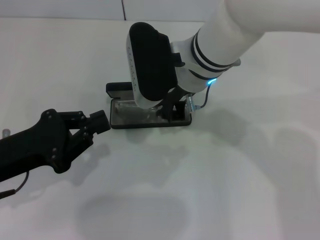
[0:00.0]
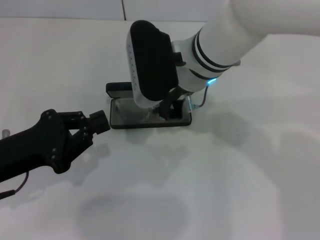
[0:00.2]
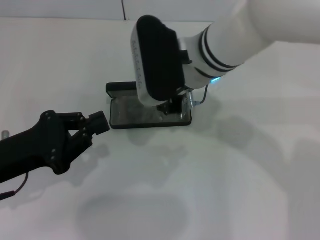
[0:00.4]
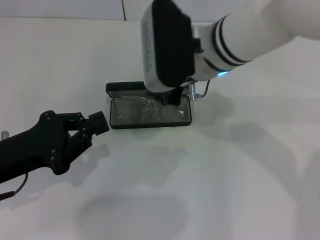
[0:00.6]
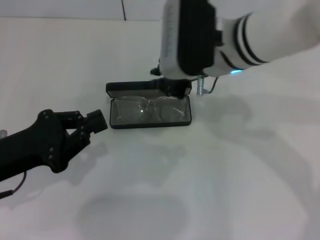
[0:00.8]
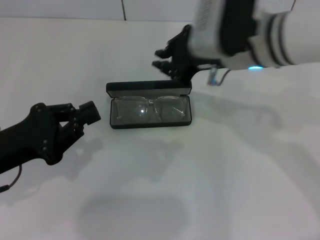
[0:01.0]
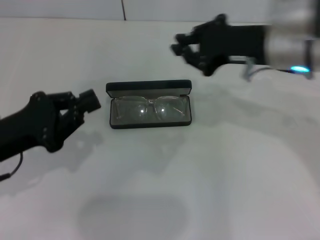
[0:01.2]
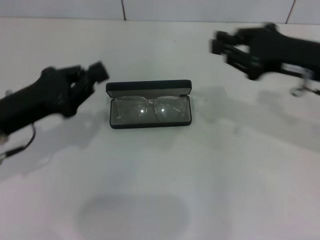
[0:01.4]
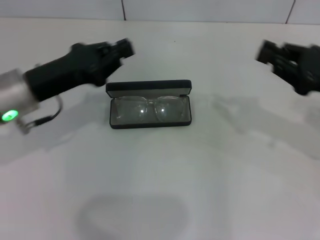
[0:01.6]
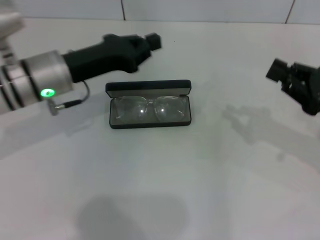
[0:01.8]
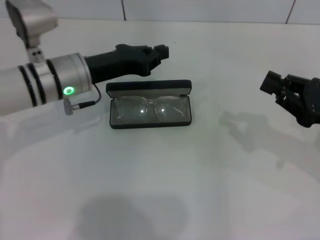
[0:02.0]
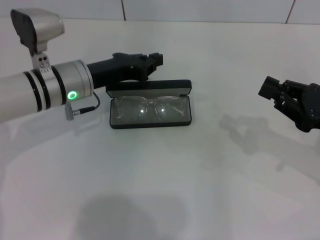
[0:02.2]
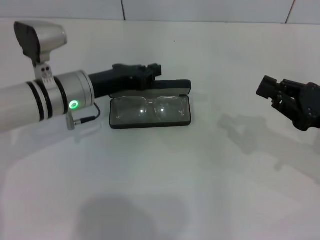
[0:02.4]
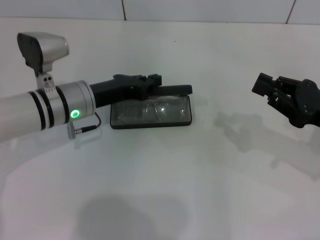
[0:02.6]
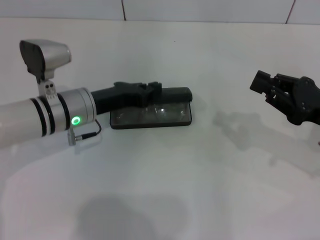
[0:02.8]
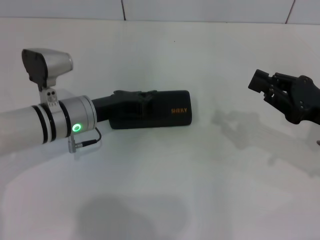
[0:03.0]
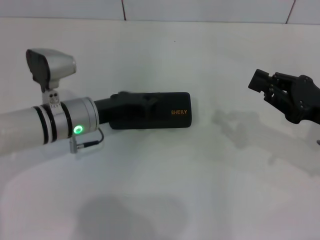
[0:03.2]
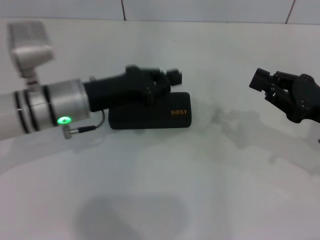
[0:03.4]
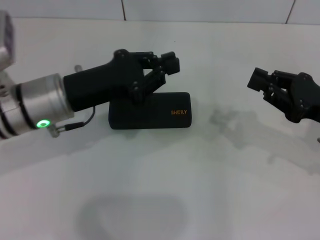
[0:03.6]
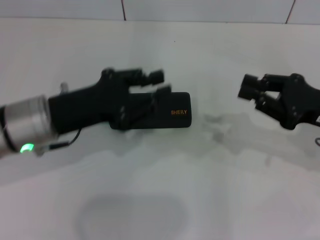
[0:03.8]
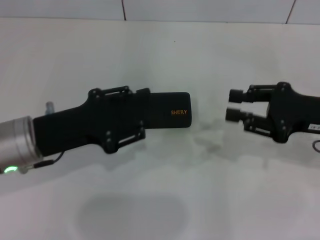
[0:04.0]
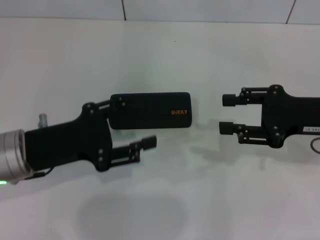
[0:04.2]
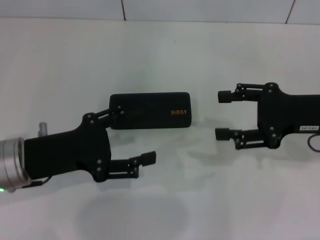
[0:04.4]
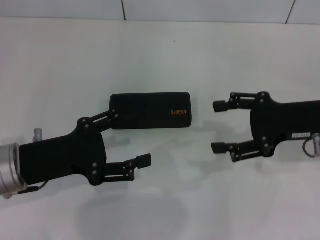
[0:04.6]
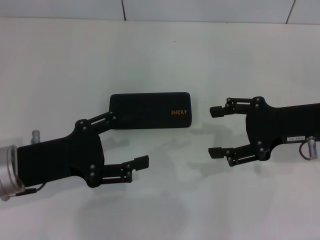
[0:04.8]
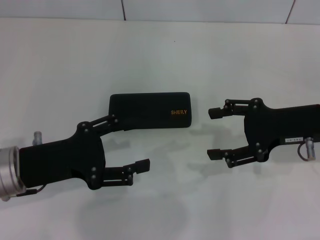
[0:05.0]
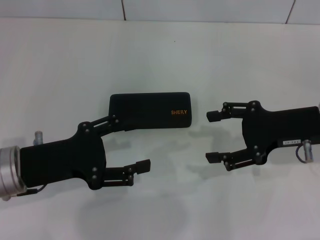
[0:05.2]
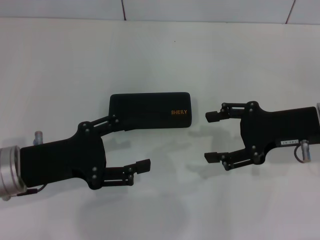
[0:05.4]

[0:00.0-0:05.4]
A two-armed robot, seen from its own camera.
Step, 1.0 to 3.2 s: Close the glasses case with your left hand.
0.0 to 1.4 s: The right gripper goes about 20 cm to the right.
1.4 to 2.8 s: The right gripper moves downward, about 10 cm. The left gripper shifts roughly 15 cm to the right, forward and downward.
2.8 to 4.0 s: The left gripper goes about 10 cm backward and upward.
4.0 to 5.4 s: The right gripper opens up. Meanwhile the left gripper opens up.

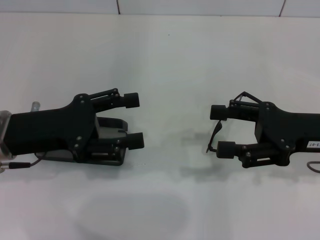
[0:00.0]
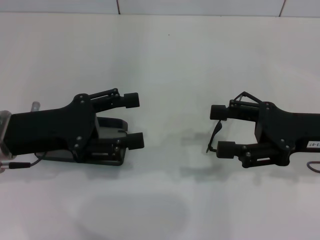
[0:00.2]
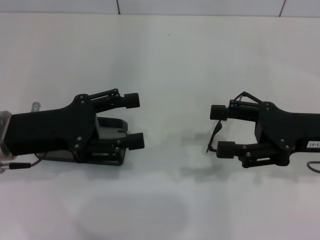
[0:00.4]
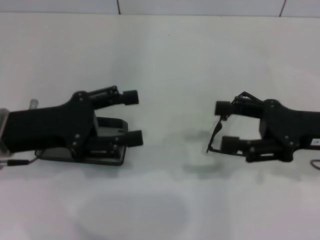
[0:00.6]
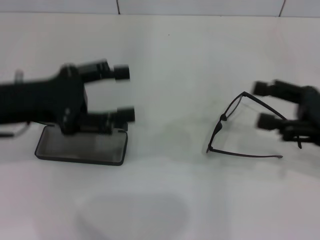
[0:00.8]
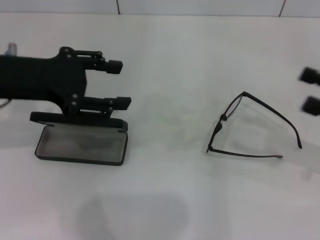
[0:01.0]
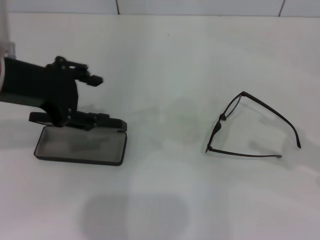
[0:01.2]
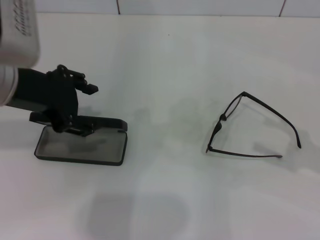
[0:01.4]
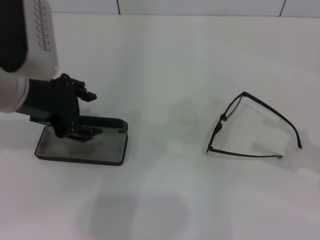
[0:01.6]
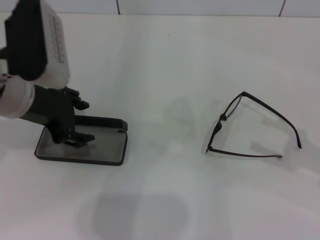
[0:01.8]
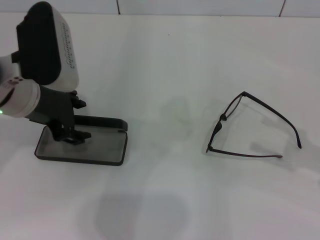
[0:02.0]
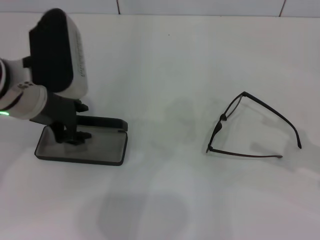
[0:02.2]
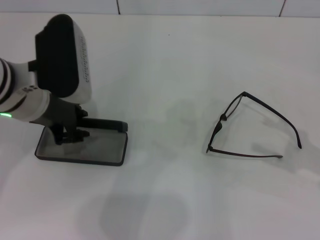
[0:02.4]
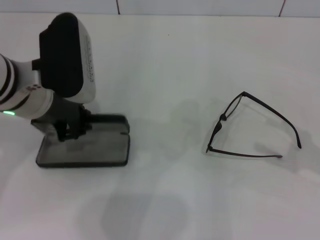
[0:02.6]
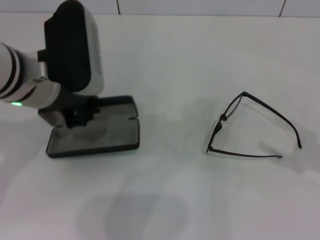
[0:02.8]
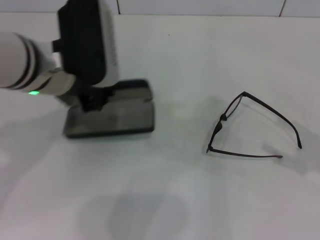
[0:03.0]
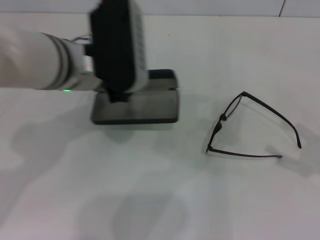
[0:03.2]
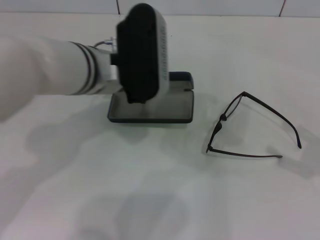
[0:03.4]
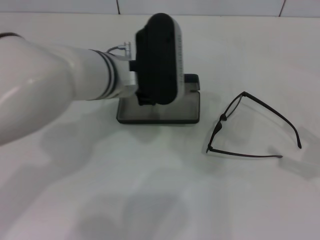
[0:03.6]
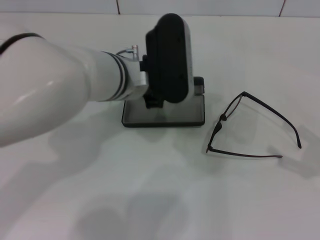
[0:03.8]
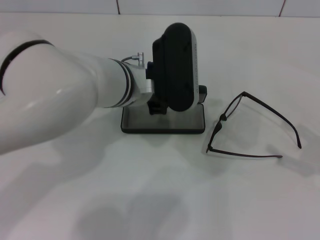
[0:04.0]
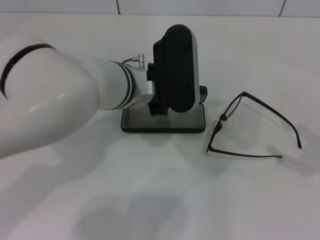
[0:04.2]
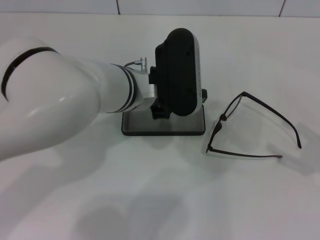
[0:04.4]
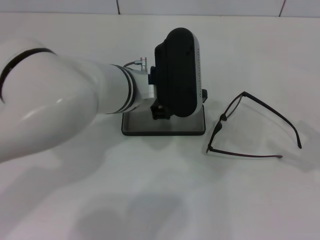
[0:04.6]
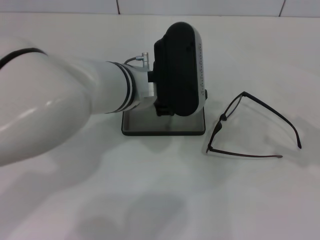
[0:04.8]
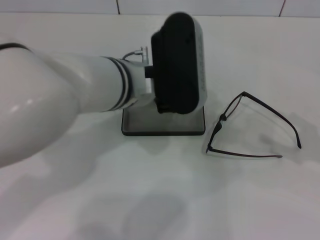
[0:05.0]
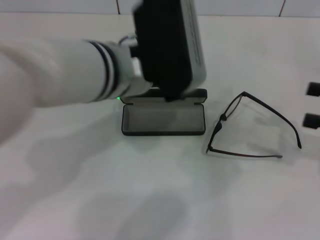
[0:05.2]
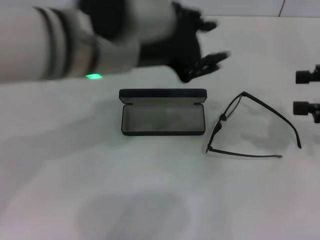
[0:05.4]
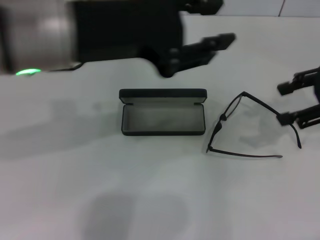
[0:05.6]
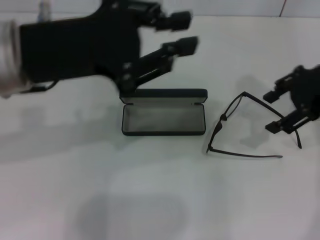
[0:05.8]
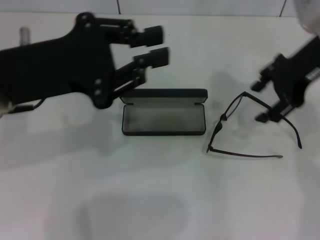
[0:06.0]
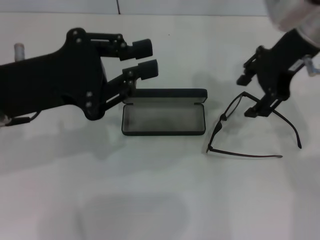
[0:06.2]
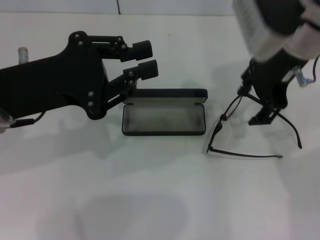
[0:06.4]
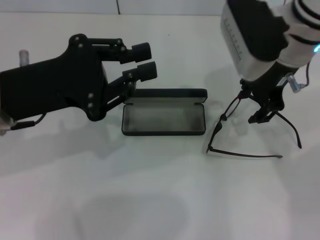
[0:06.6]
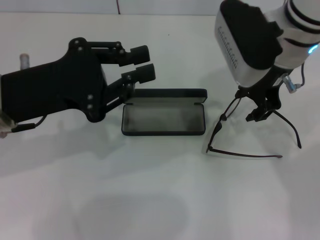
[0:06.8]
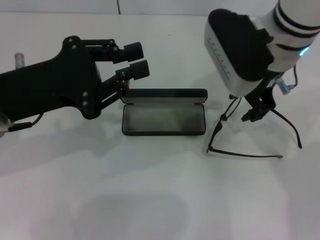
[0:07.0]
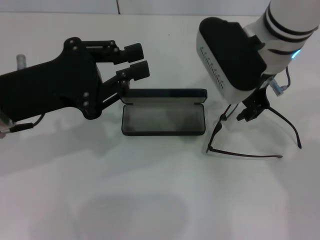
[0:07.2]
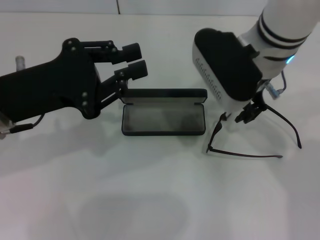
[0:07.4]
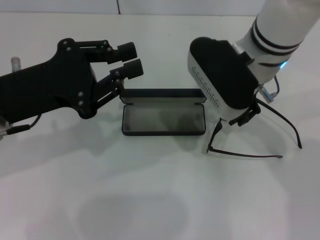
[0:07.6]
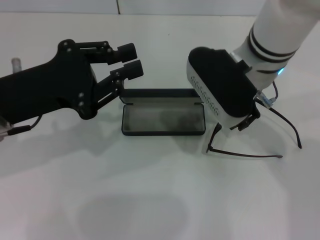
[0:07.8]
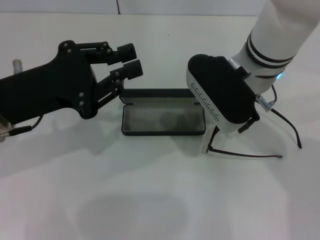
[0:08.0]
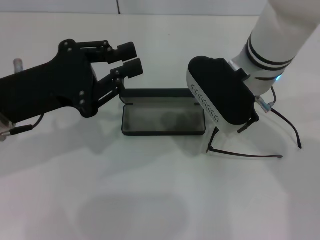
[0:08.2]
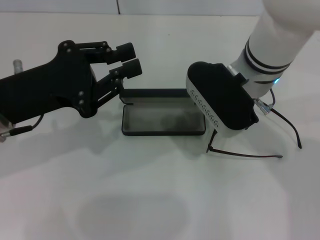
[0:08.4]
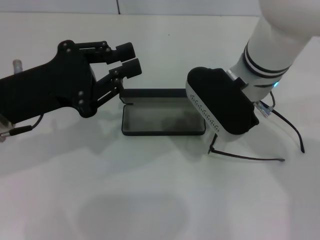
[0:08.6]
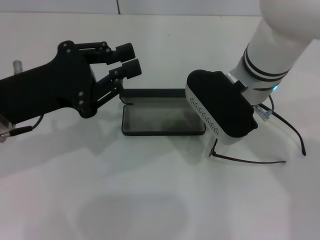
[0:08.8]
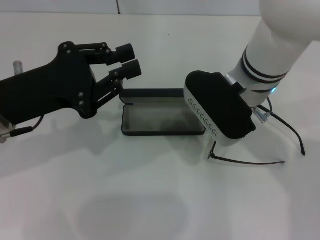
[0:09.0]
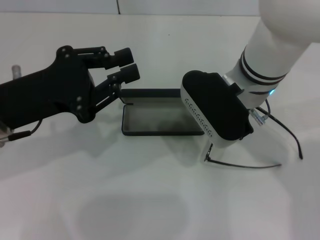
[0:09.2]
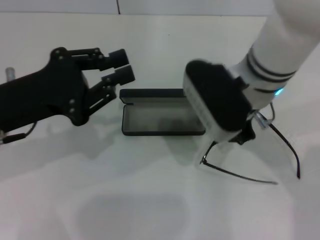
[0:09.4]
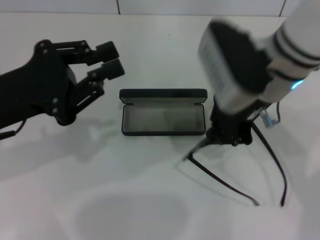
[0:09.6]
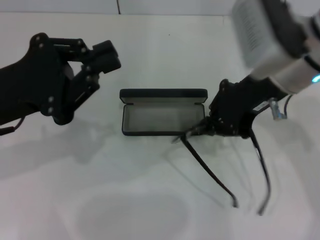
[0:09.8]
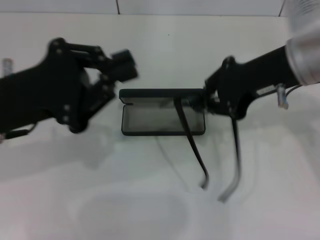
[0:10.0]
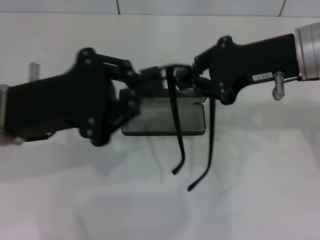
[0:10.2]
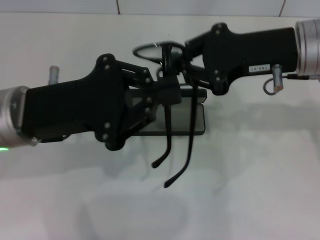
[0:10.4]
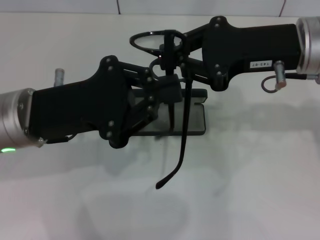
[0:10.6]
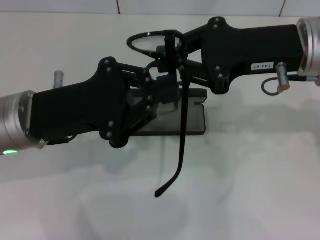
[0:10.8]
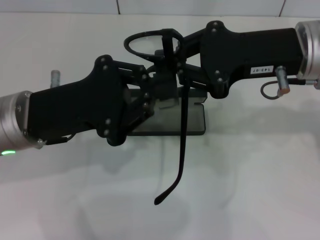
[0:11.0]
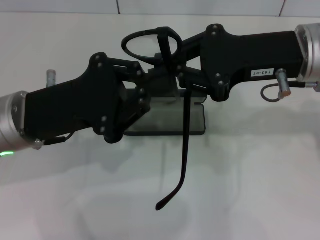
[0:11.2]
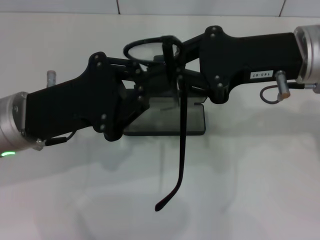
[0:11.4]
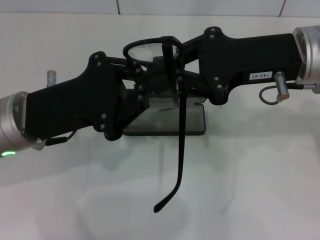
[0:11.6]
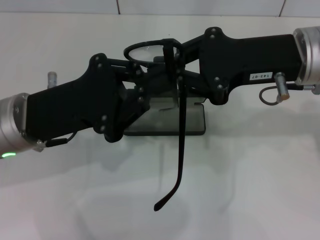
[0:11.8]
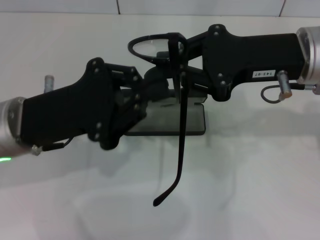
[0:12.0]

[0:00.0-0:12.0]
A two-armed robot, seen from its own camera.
Step, 0.0 to 2.4 s: Grab the glasses case with your left hand.
Step, 2.6 to 4.4 s: Place the glasses case in the center of the table with your left hand.
Step, 4.6 to 8.8 s: Grab the eyeglass frame with your right hand.
0.0 to 1.6 s: The left gripper shifts roughly 10 cm upward. Meanwhile the right gripper heads to the right and backward, covering approximately 15 cm.
1.6 to 3.0 s: The left gripper goes roughly 5 cm to the right, and closes up.
3.0 to 4.4 s: The left gripper travels to the right and downward by about 10 cm.
4.4 to 6.0 s: The left gripper travels to the left, upward and backward by some 20 cm. The right gripper travels to the left, forward and upward by roughly 30 cm.
6.0 to 7.6 s: The right gripper goes approximately 10 cm to the left.
7.6 to 9.0 s: The right gripper closes up.
9.0 to 10.4 s: The right gripper shifts roughly 10 cm to the right and upward.
10.4 to 12.0 s: The grippers move only a little.

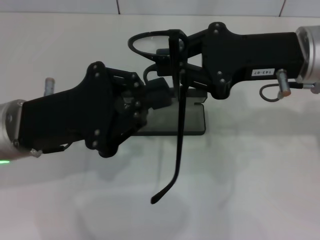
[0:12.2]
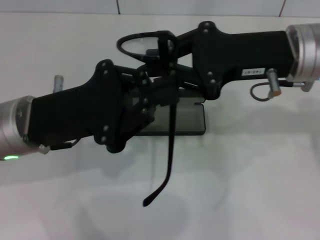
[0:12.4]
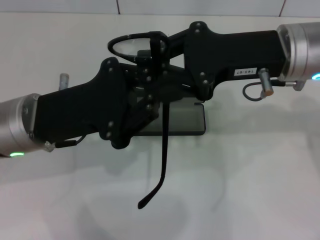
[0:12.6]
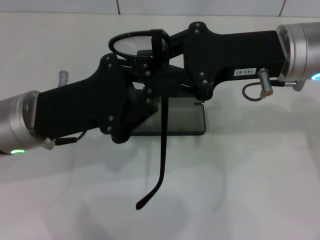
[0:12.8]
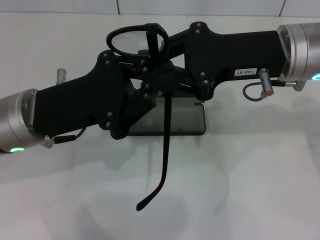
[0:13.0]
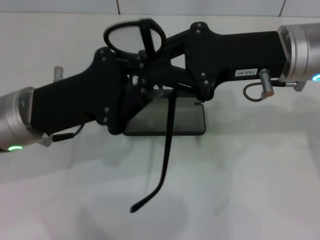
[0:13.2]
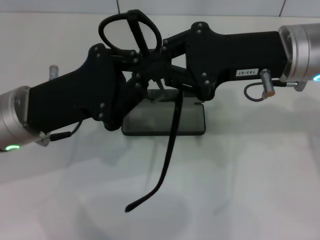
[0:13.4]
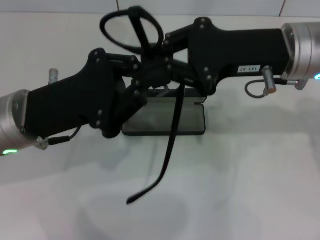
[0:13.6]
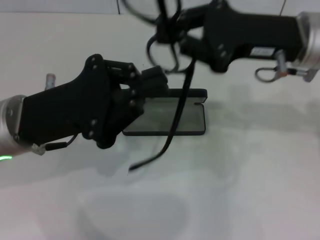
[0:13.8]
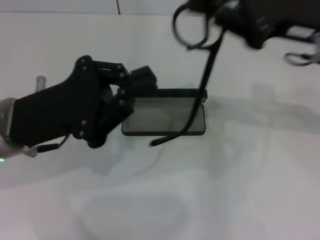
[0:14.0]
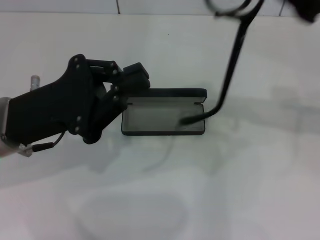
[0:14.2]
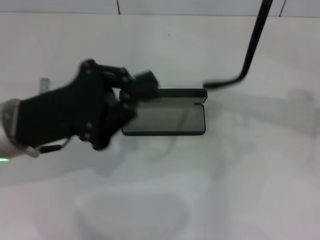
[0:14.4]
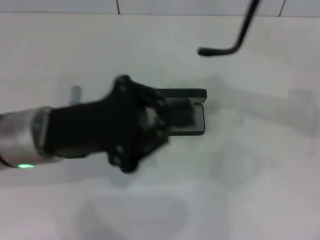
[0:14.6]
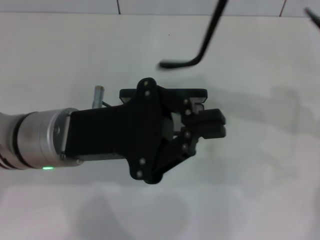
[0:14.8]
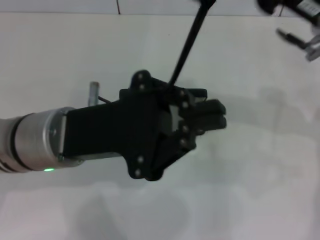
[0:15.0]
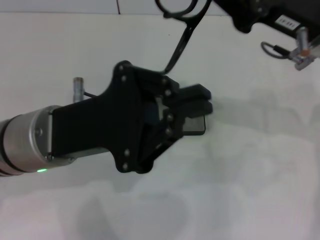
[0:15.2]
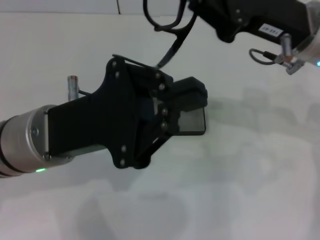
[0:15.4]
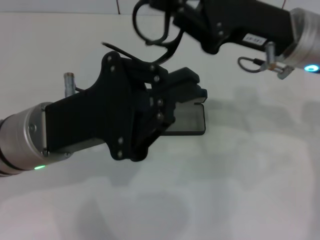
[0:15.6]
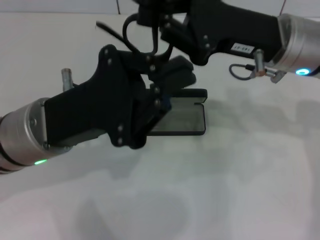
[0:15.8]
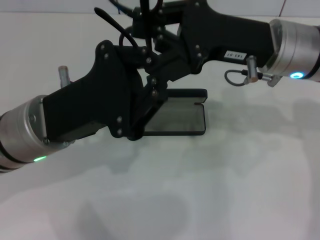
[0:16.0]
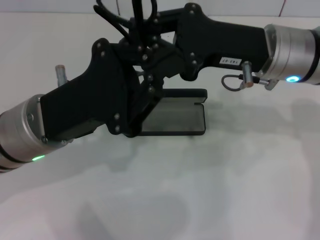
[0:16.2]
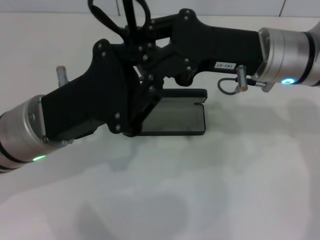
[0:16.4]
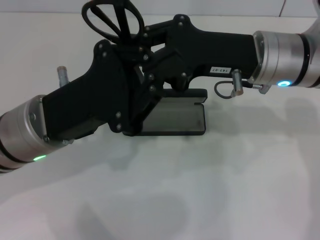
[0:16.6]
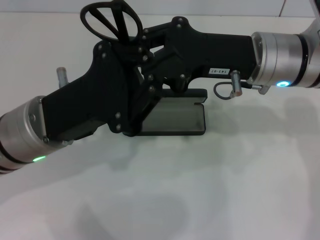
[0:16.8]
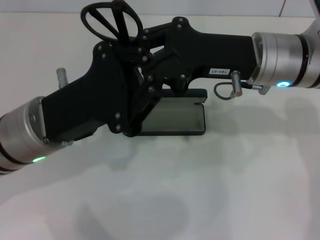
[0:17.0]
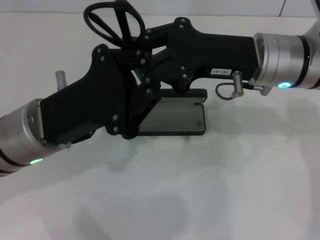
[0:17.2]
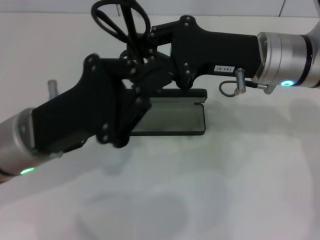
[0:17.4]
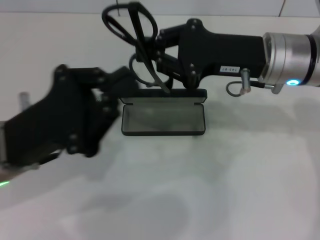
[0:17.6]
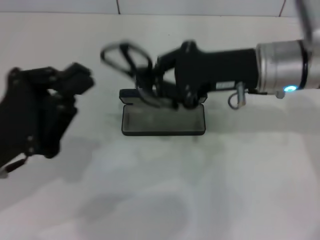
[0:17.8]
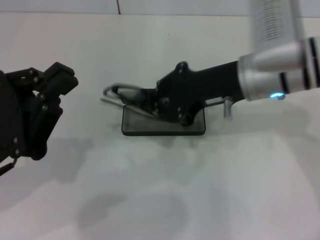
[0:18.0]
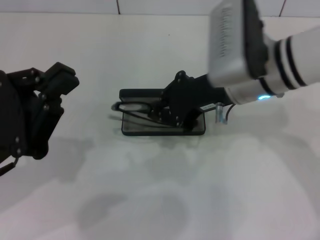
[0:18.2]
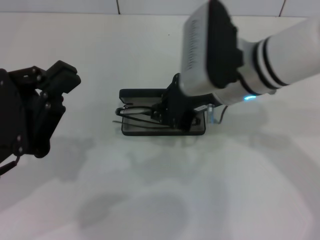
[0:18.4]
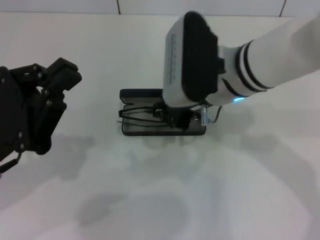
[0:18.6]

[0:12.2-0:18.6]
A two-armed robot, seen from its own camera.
Step, 12.2 to 17.0 s: Fold the frame with your left hand.
12.2 to 13.8 s: The grippers move only a little.
13.8 to 15.4 s: The right gripper reaches about 5 cm to the right, then returns.
17.0 to 18.6 s: The grippers both shift to the left by about 5 cm.
